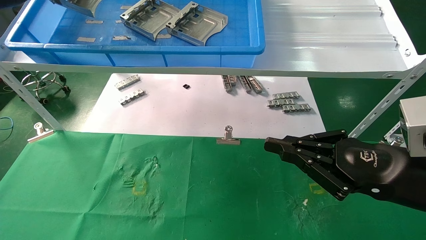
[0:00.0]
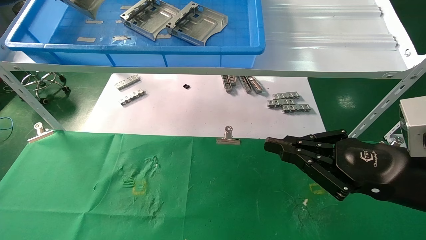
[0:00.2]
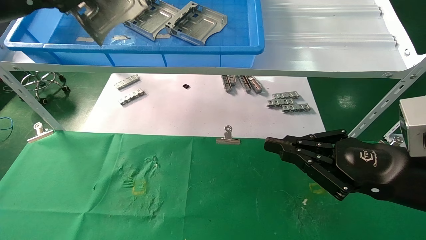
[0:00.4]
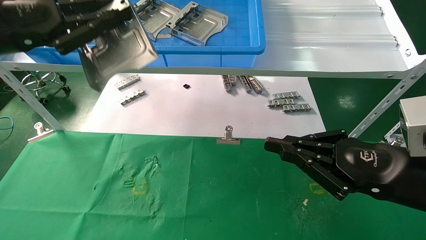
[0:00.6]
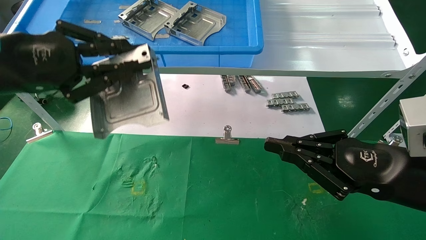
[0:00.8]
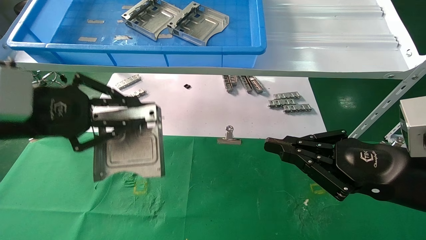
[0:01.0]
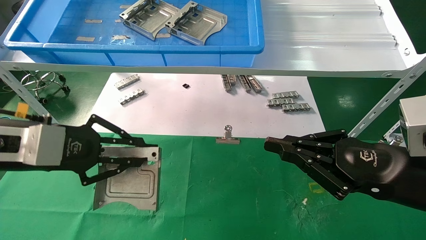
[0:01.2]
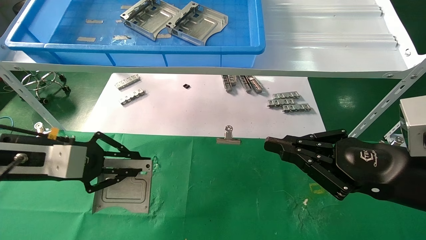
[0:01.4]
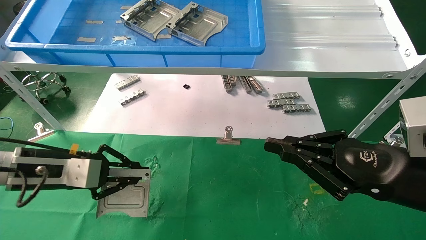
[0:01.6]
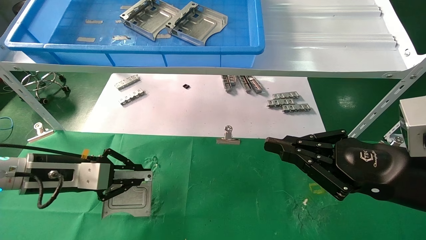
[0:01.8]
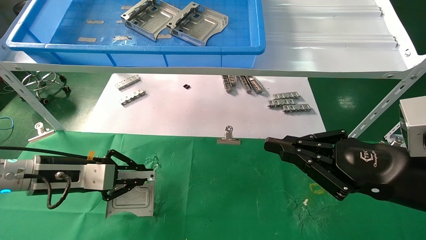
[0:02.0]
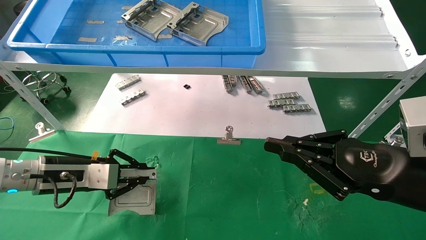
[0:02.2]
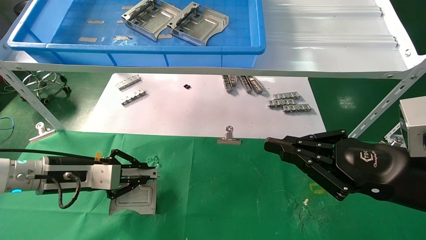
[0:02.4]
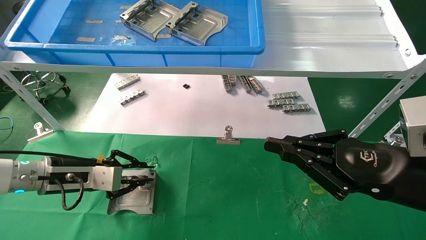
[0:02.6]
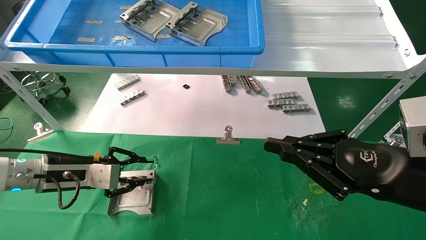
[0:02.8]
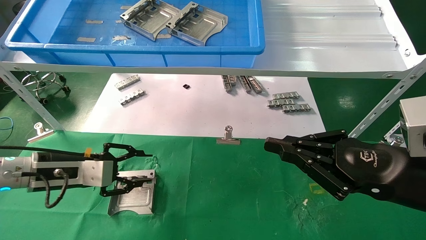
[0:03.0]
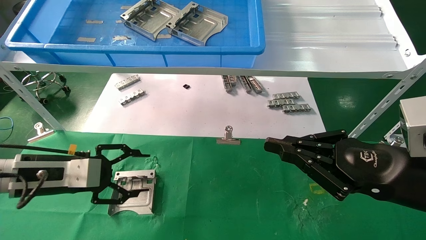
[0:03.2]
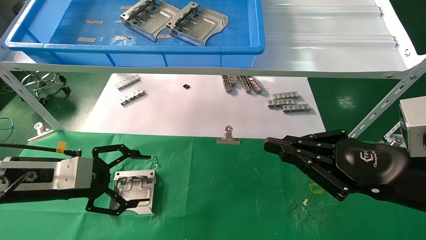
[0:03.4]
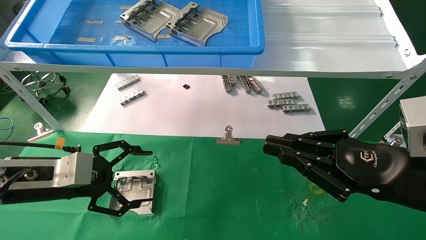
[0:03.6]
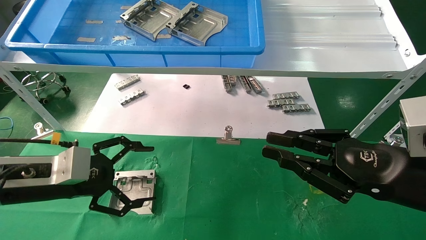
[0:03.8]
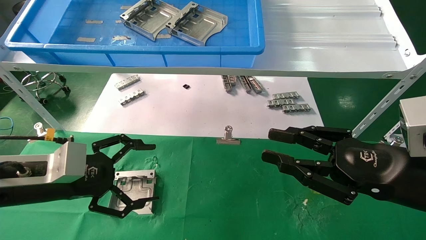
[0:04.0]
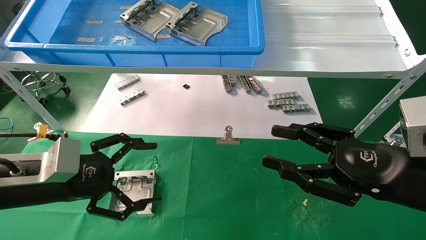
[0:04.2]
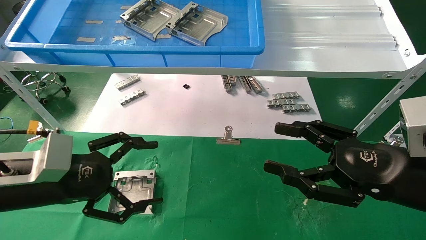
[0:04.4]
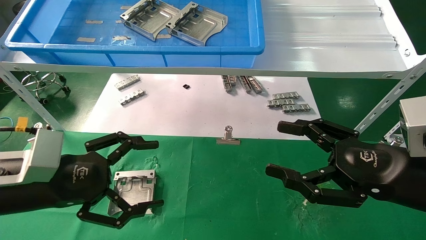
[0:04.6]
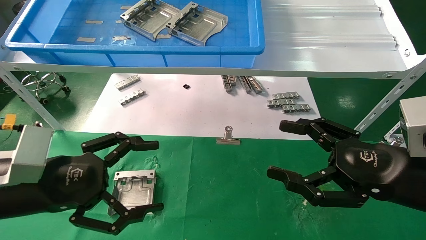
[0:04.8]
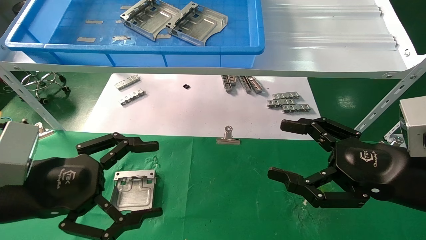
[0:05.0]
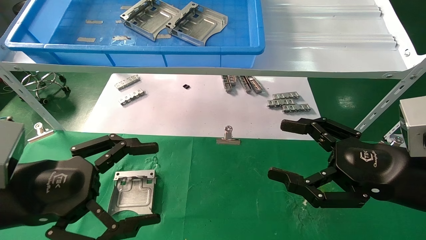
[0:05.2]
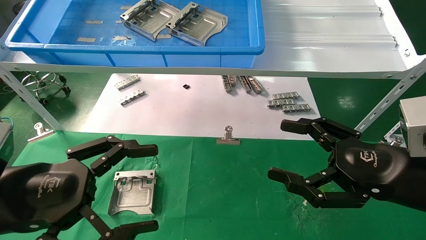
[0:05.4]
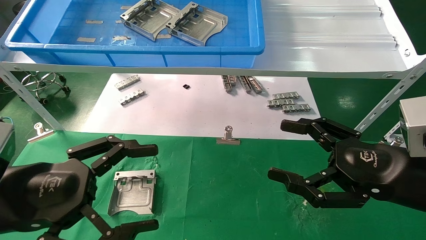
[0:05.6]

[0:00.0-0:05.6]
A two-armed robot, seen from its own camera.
Task of the whole recording: use the mechanical arm to pick up the parts and place them on the table.
Step, 0:00.0 to 0:02.8: Place the hard drive bracket into the box.
0:00.0 to 0:01.4: The left gripper travels downward by approximately 25 cm.
0:01.4 to 0:02.8: The left gripper heads downward, covering about 5 cm.
0:02.8 to 0:04.2: The right gripper opens. The left gripper goes approximately 10 cm backward, and opens its fingers.
0:04.2 to 0:05.6: The left gripper is displaced backward by some 10 cm. Meanwhile the right gripper opens.
